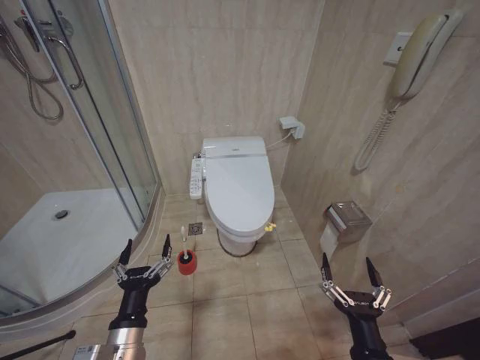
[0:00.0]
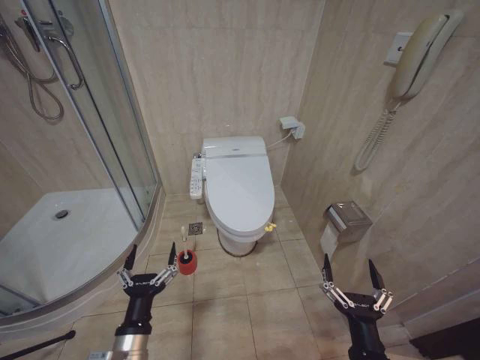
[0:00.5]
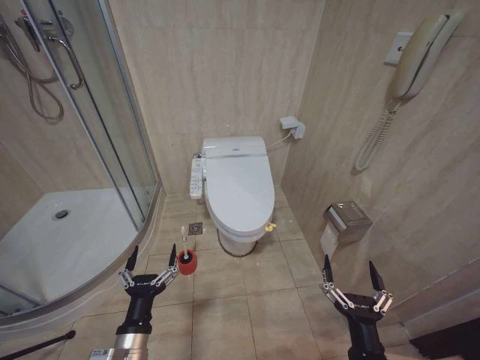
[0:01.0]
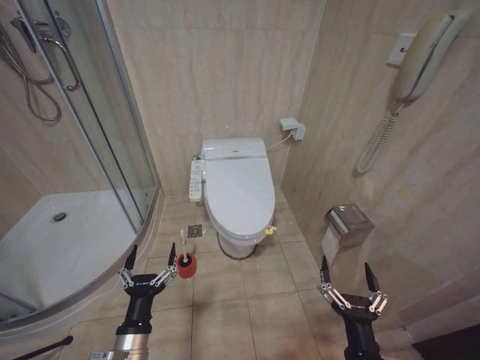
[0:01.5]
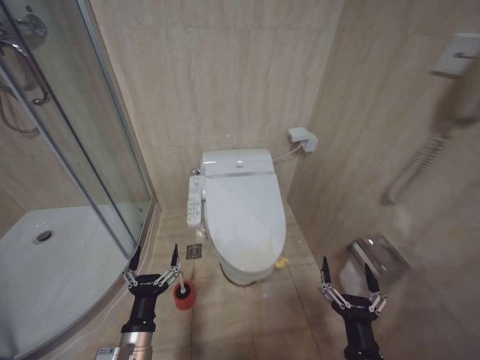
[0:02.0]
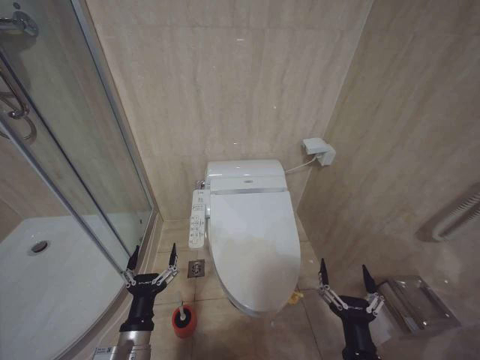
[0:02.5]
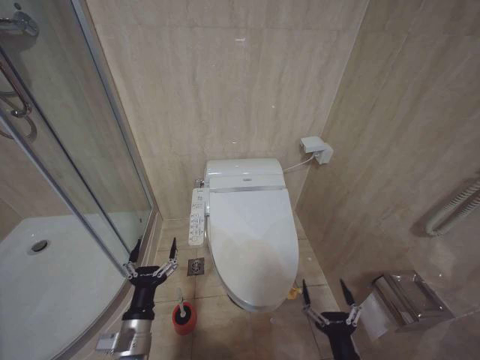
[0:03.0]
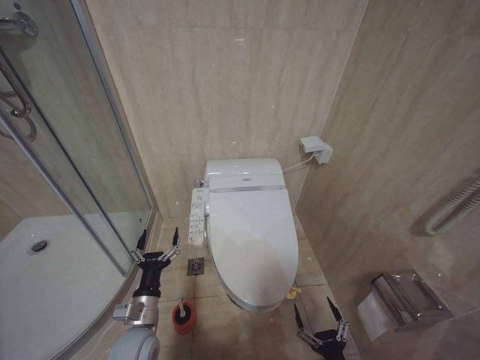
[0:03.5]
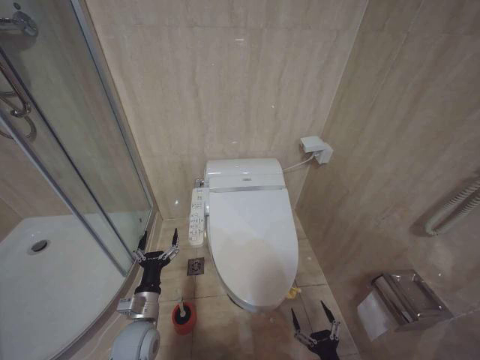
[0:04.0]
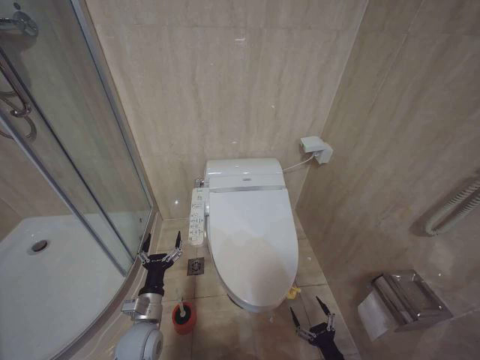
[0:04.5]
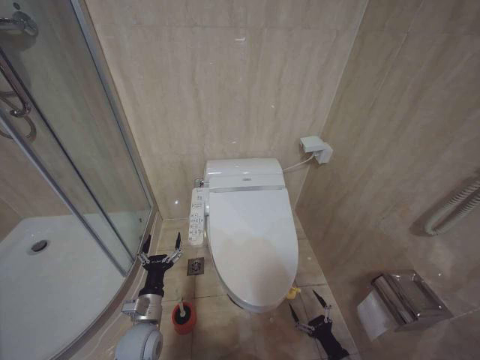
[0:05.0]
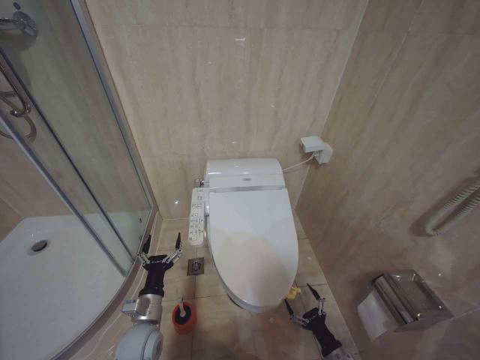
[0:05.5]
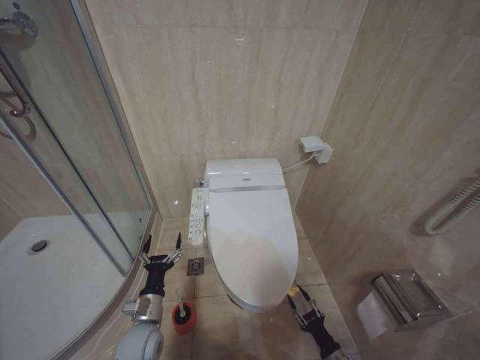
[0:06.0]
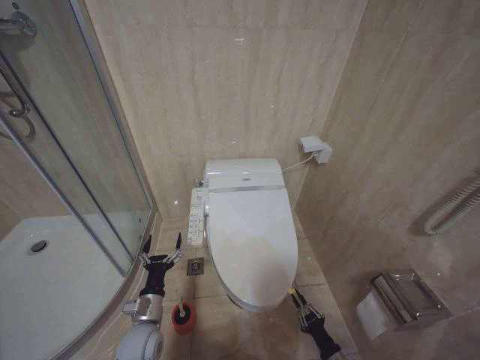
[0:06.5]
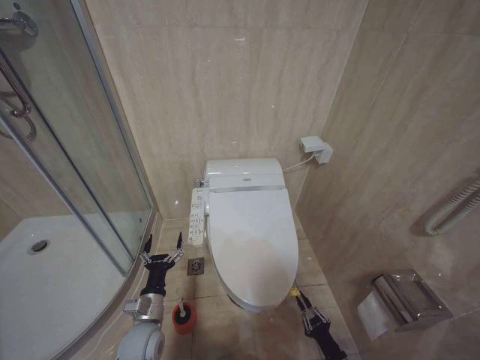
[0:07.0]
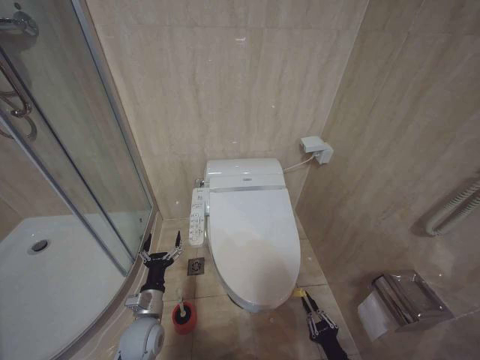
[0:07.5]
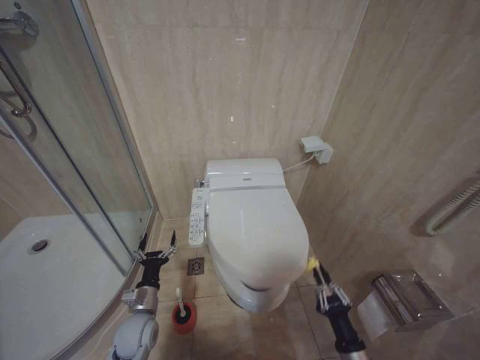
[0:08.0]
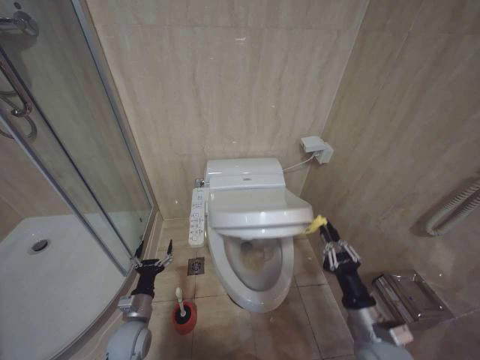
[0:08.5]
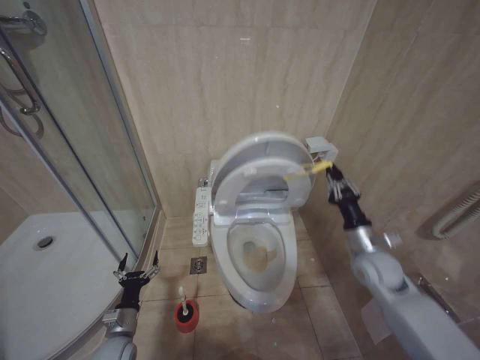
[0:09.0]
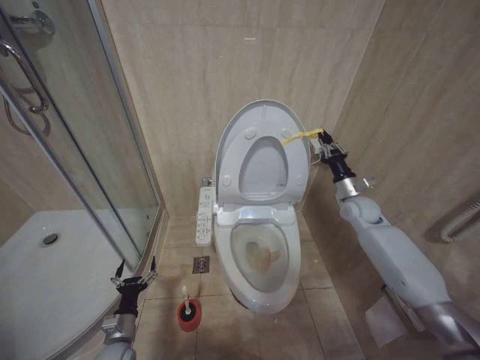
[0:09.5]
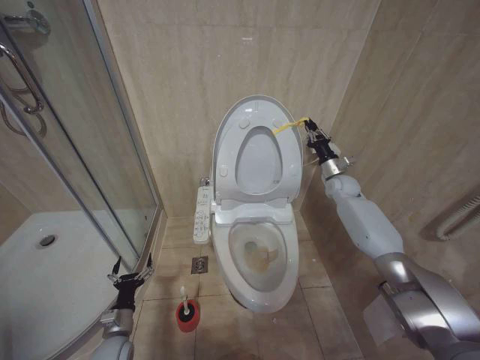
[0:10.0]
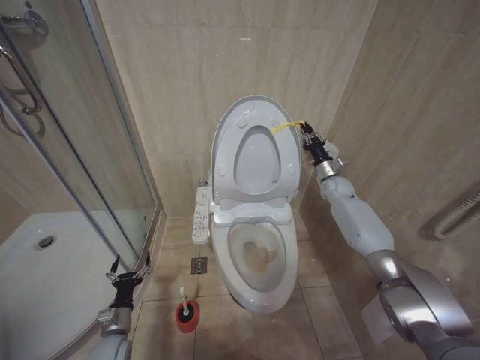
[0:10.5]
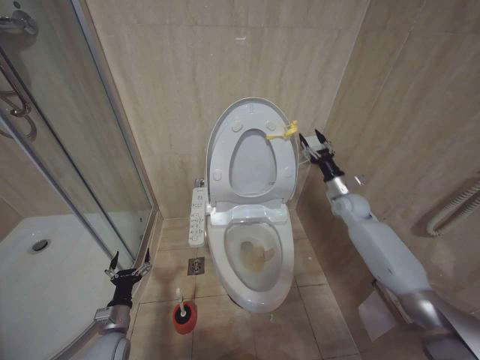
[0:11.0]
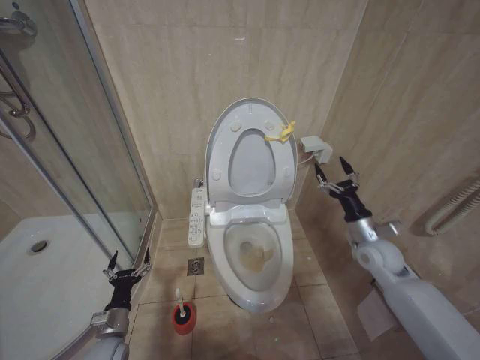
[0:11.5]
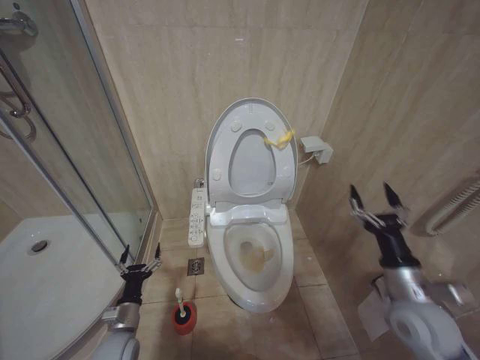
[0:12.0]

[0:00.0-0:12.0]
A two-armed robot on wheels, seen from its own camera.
Task of the whole recording: Open the toilet lid, clean the toilet bowl with a toilet brush, close the toilet lid, and flush.
0:02.0 to 0:04.0: The right gripper is displaced downward by approximately 15 cm. Meanwhile the left gripper moves forward and downward, about 10 cm.
0:04.0 to 0:06.0: The right gripper heads forward, downward and to the right, covering some 10 cm, and closes up.
0:06.0 to 0:08.0: The right gripper shifts some 10 cm upward, and closes up.
0:08.0 to 0:10.0: The left gripper shifts approximately 10 cm to the left and downward, while the right gripper shifts some 50 cm forward and upward.
0:10.0 to 0:12.0: The right gripper heads backward, covering some 35 cm, and opens up.

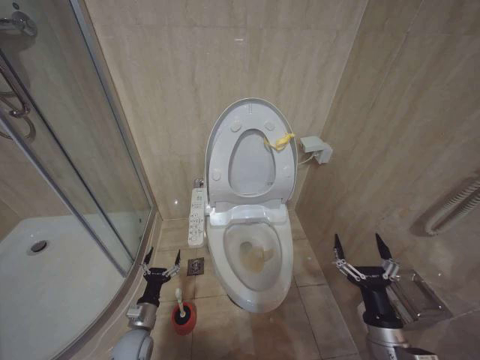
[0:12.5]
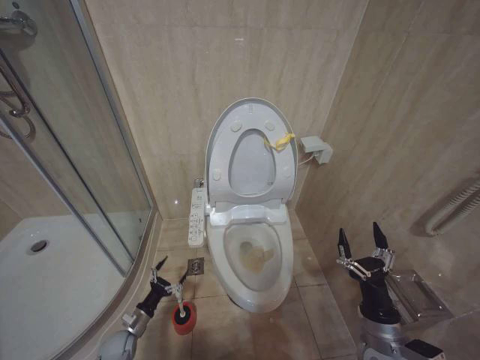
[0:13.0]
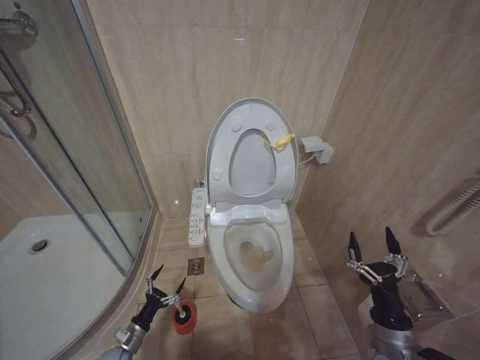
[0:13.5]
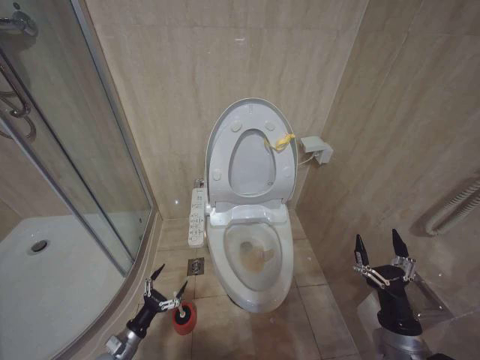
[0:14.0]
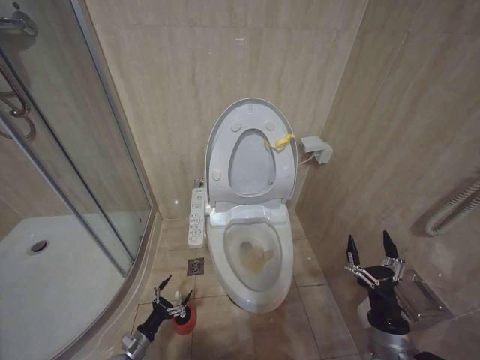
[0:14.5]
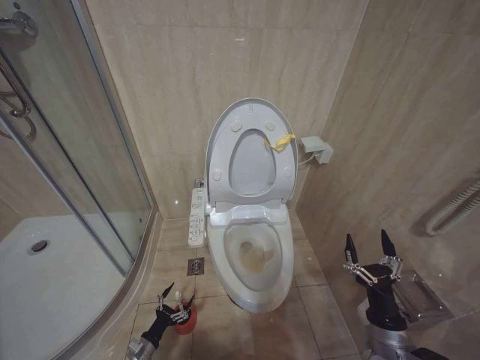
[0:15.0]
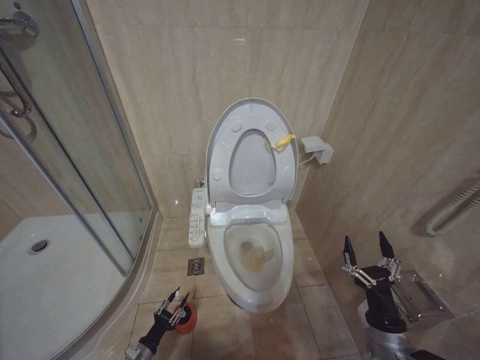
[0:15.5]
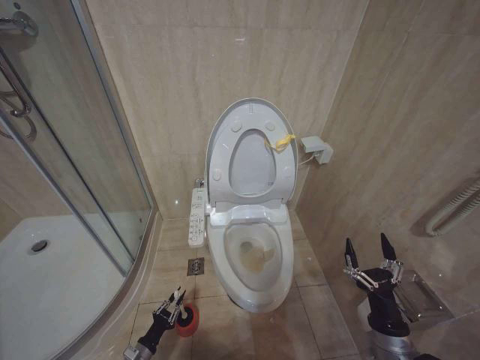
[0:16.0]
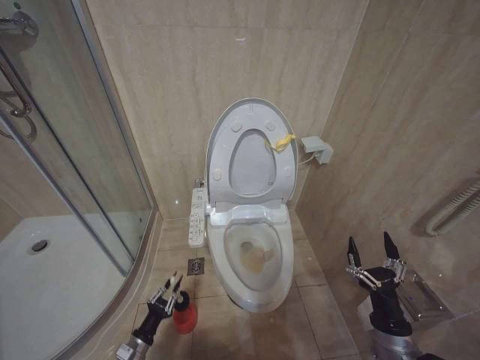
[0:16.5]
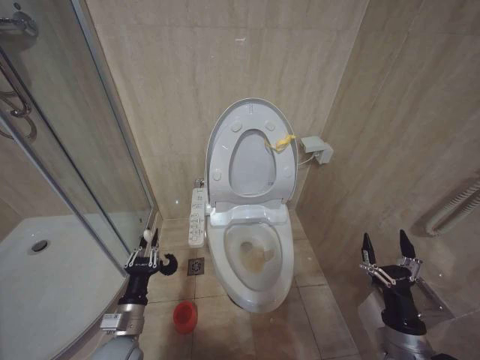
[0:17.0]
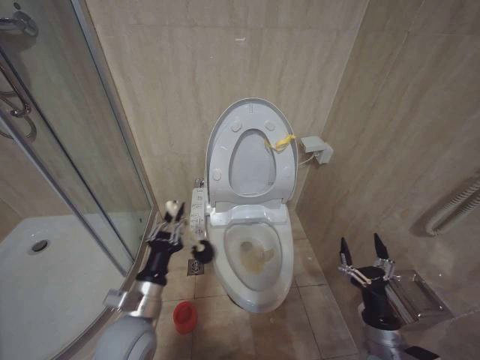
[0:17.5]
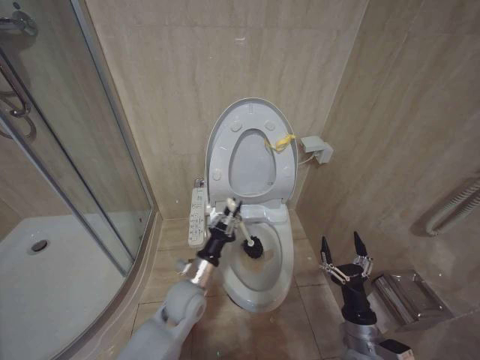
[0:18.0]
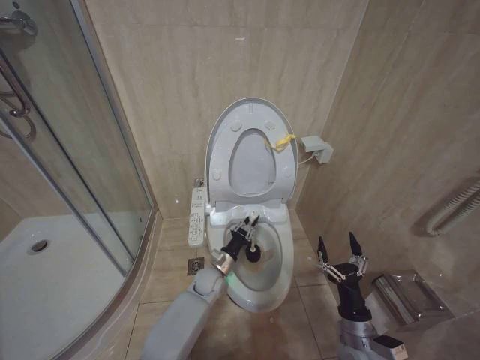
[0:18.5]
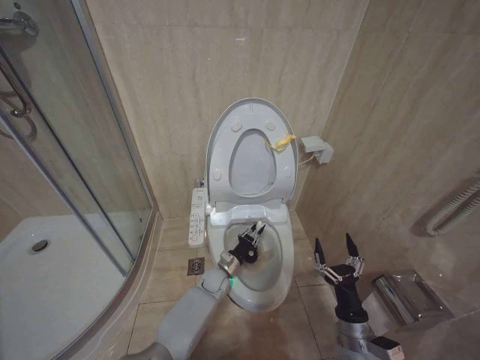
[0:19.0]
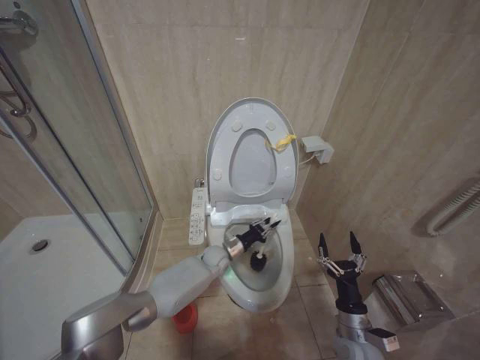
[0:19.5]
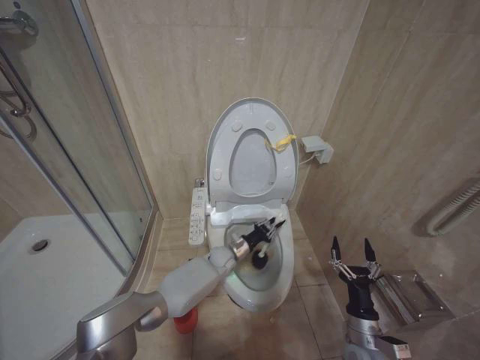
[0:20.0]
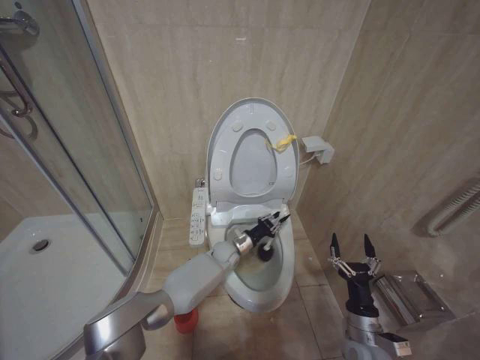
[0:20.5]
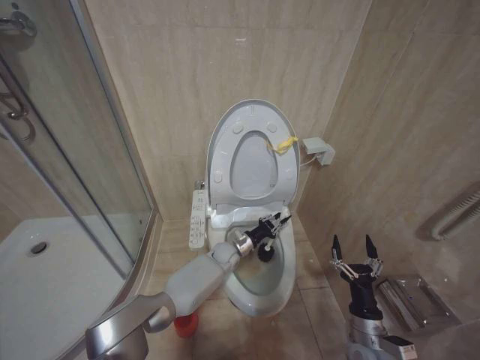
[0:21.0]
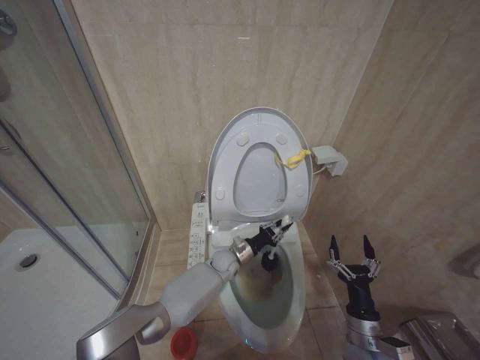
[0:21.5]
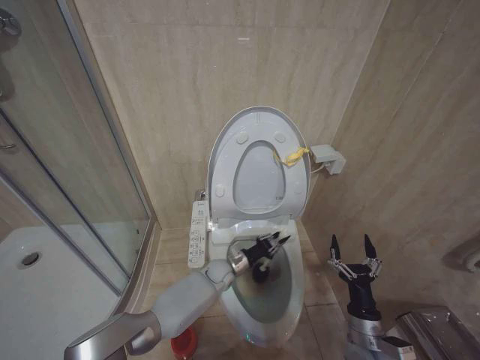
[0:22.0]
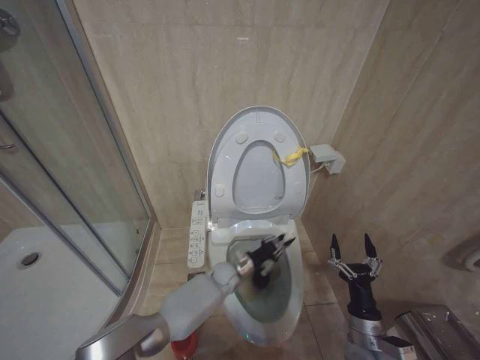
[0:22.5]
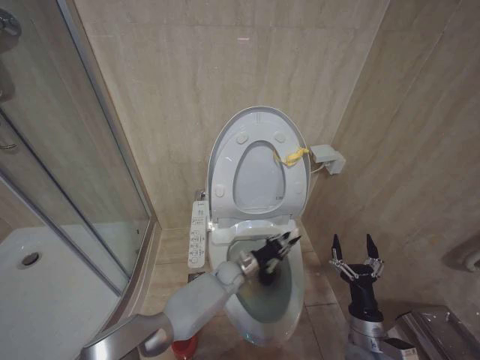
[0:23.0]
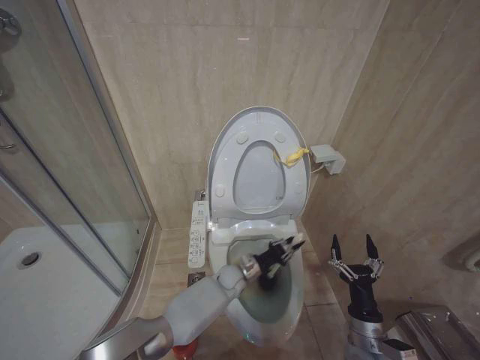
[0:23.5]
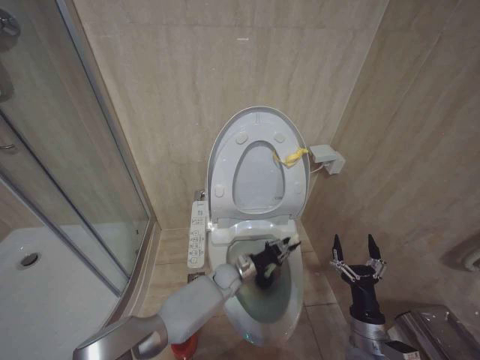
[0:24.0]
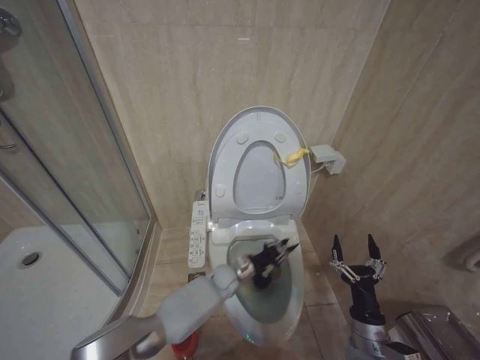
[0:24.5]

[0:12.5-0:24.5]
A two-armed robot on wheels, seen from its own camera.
Task of the whole recording: Open the toilet lid, clean the toilet bowl with a toilet brush, close the toilet lid, and flush.
0:12.5 to 0:14.5: The left gripper heads downward and to the left, covering roughly 15 cm.
0:14.5 to 0:16.5: The left gripper ends up approximately 5 cm from where it was, and closes up.
0:16.5 to 0:18.5: The left gripper is displaced to the right, forward and upward by roughly 35 cm; the right gripper changes place by some 5 cm.
0:18.5 to 0:20.5: The left gripper is displaced forward by about 10 cm.
0:20.5 to 0:22.5: The left gripper shifts some 5 cm backward.
0:22.5 to 0:24.5: The grippers make only small movements.

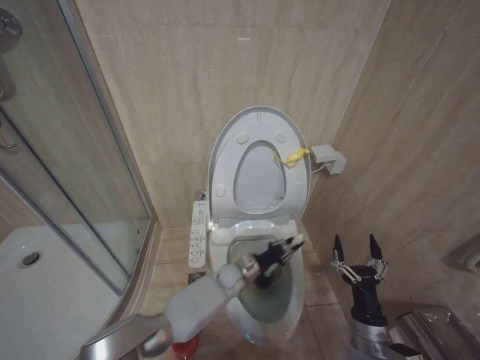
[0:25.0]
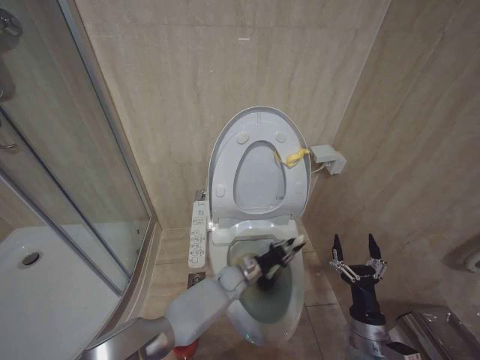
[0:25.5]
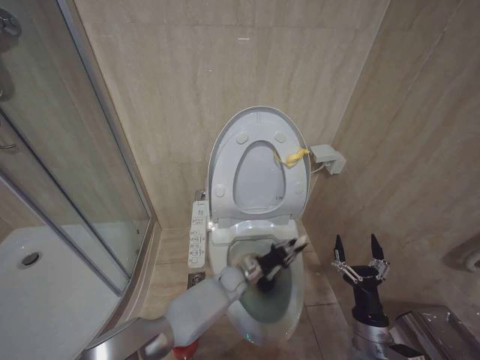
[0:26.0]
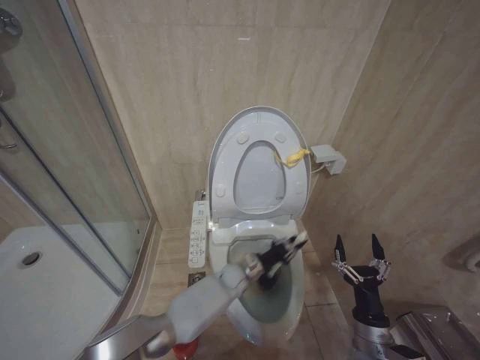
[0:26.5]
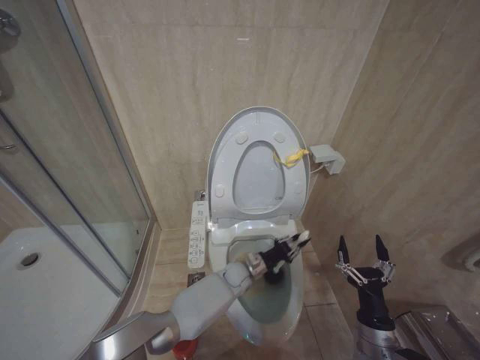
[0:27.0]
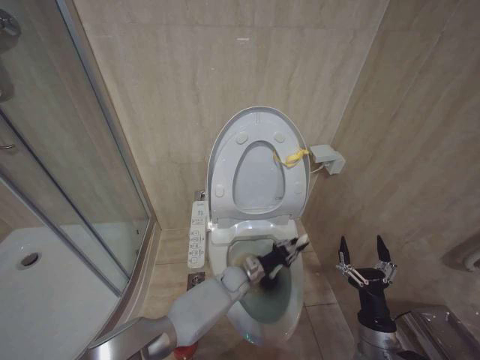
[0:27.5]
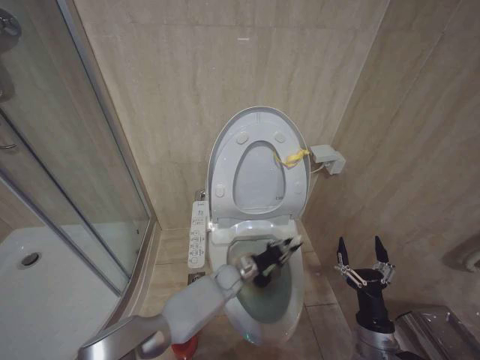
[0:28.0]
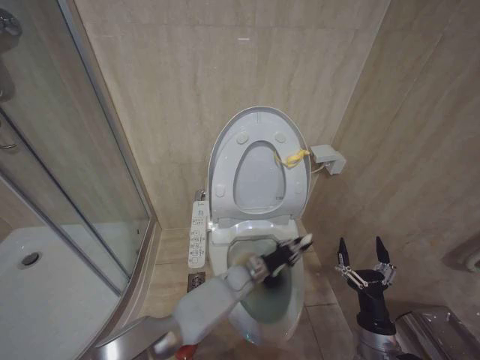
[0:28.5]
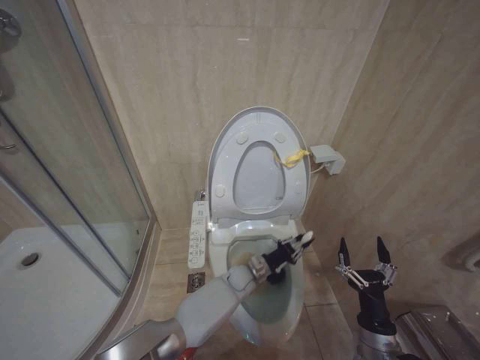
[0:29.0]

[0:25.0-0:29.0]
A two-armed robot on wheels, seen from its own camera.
Task of the whole recording: Open the toilet lid, clean the toilet bowl with a toilet brush, close the toilet lid, and flush.
0:25.0 to 0:29.0: The grippers move only a little.
